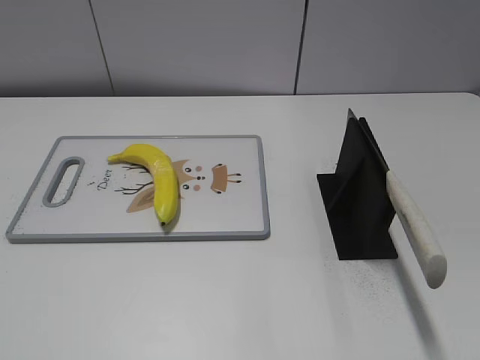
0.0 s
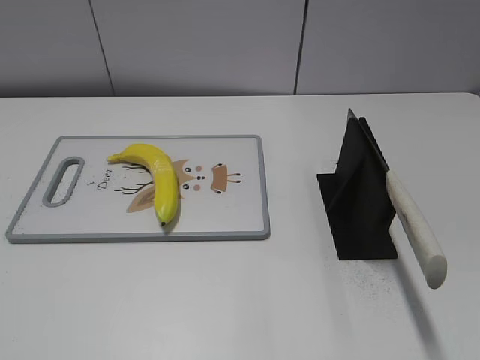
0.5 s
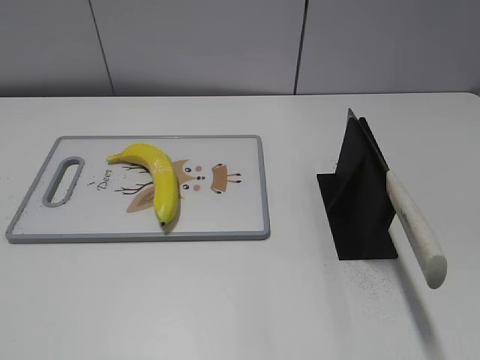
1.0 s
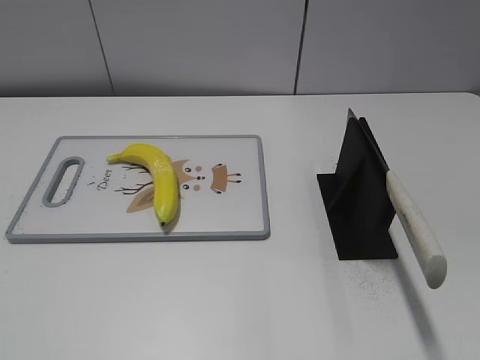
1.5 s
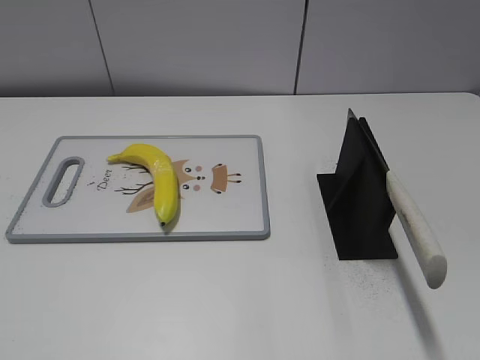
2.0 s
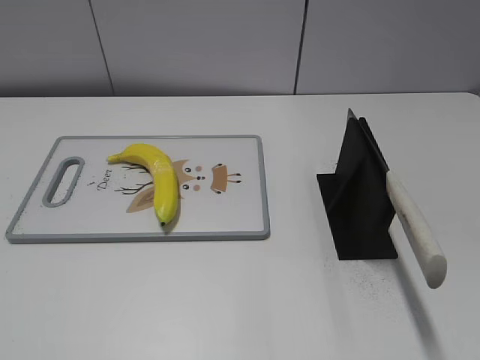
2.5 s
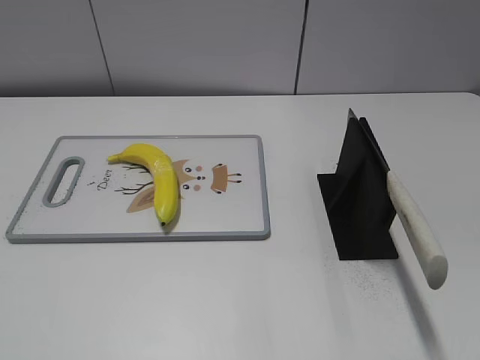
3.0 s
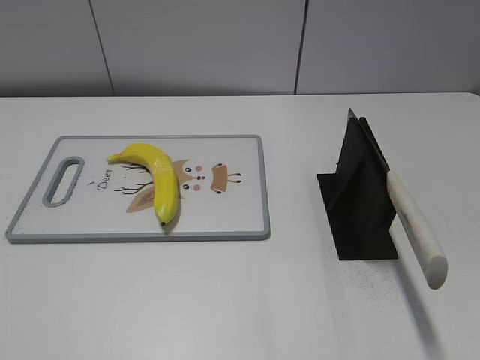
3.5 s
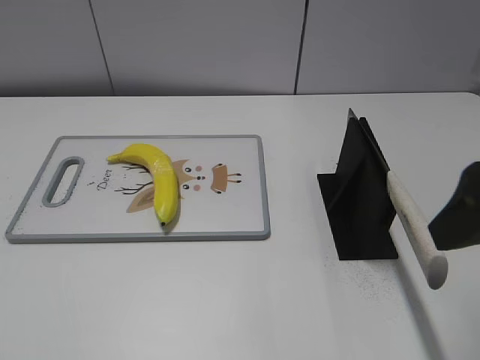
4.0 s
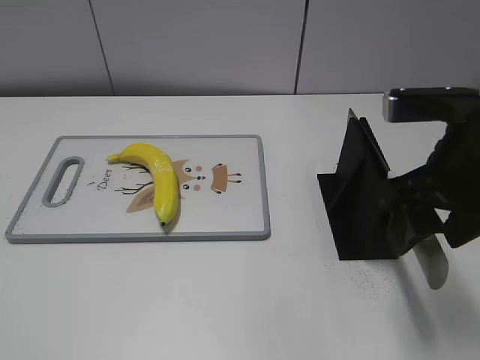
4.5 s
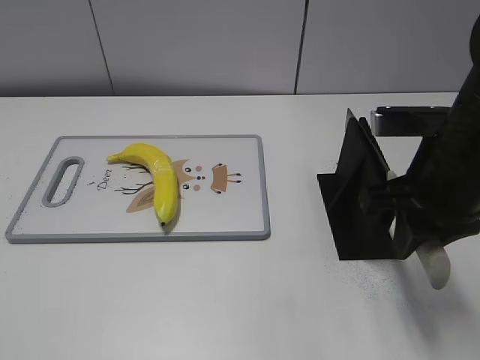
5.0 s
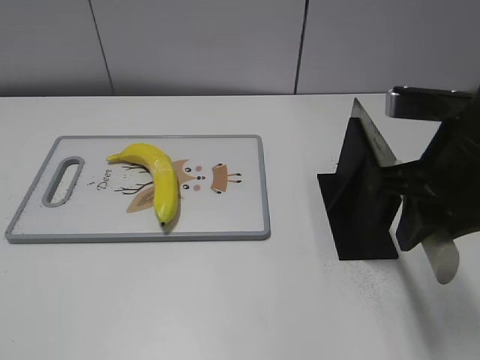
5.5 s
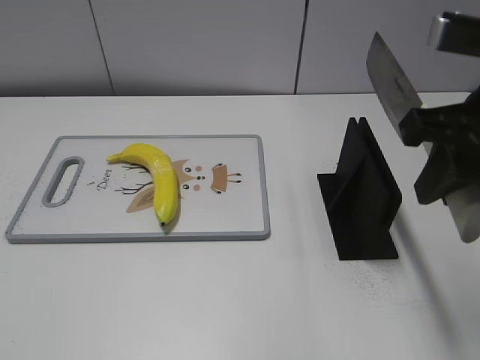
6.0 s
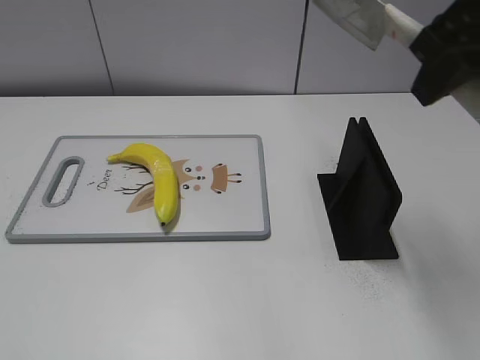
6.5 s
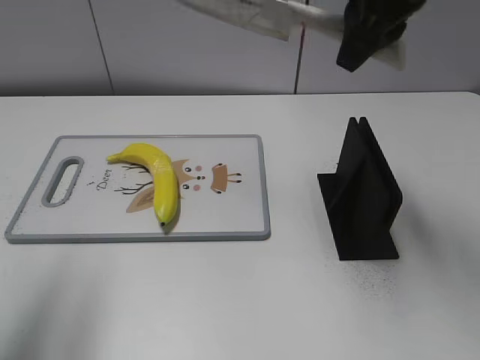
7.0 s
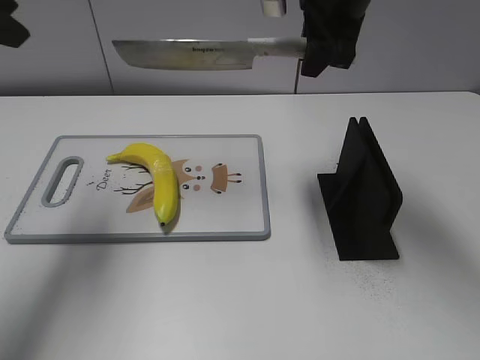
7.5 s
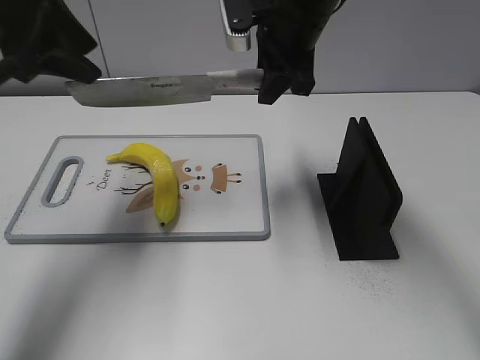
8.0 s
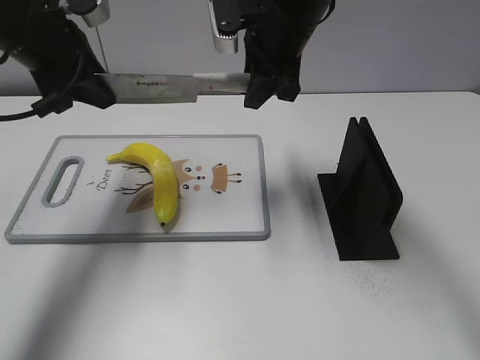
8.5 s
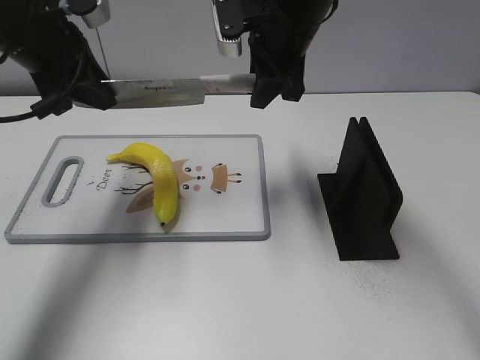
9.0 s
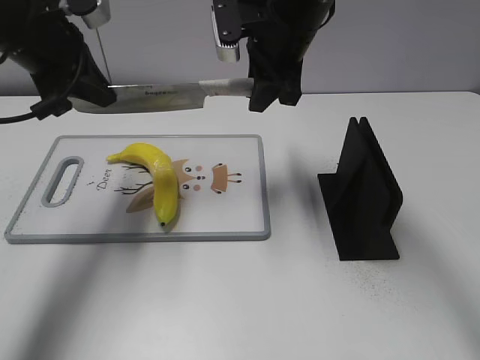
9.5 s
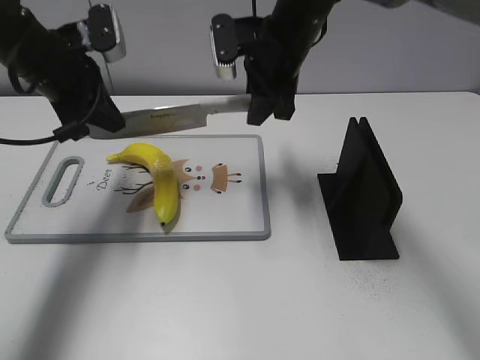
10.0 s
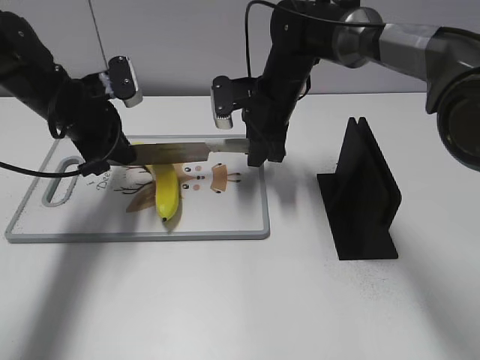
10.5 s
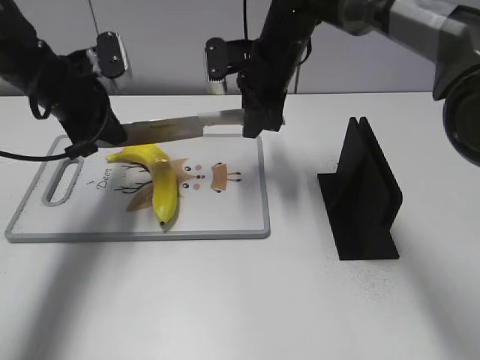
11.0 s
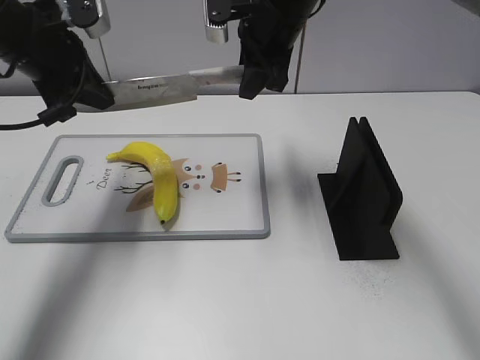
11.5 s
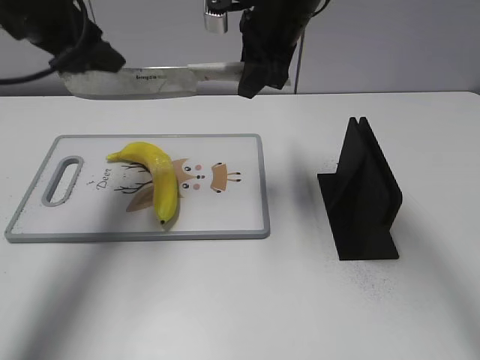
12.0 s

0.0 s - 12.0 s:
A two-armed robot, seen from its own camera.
Task of the whole recording: cut plastic banana.
Step, 0.0 s - 6.0 s: Grab the knife handle with your right hand.
Step, 6.5 s - 10.0 s: Lift the knife with your right hand.
2.0 s - 4.0 s: The right gripper is displaced forward by some 20 cm, and opens.
4.0 s - 6.0 s: The right gripper moves some 10 cm downward and comes back, and closes.
6.0 s - 8.0 s: The left gripper moves forward, some 35 cm. Meanwhile the right gripper goes about 25 cm forward and to the left.
8.0 s - 10.0 s: The left gripper shifts about 10 cm downward, and closes its fingers. The right gripper heads downward, covering some 5 cm.
10.0 s - 12.0 s: Both grippers move upward, some 5 cm. The left gripper opens.

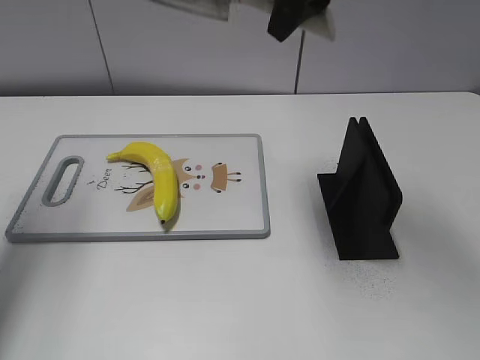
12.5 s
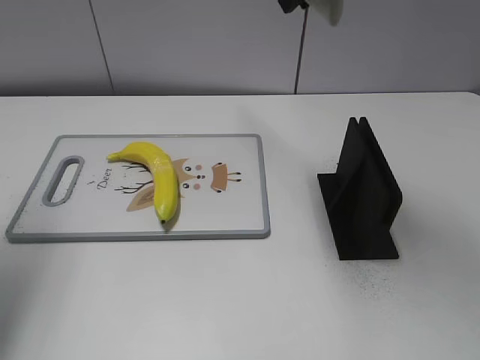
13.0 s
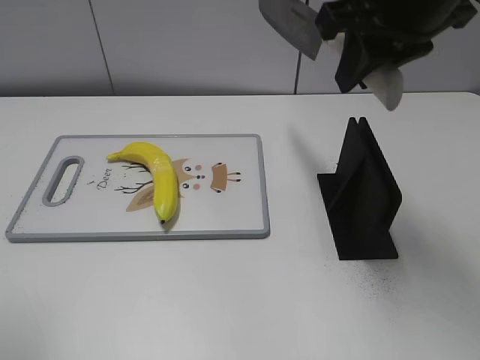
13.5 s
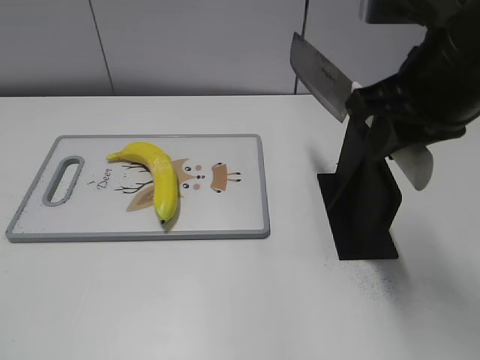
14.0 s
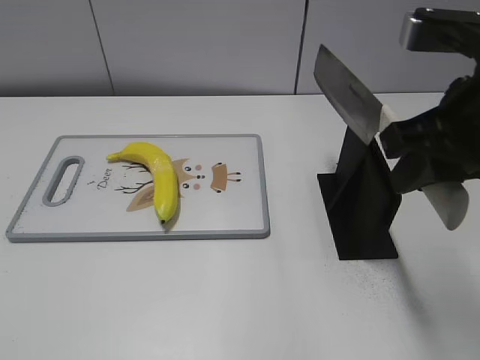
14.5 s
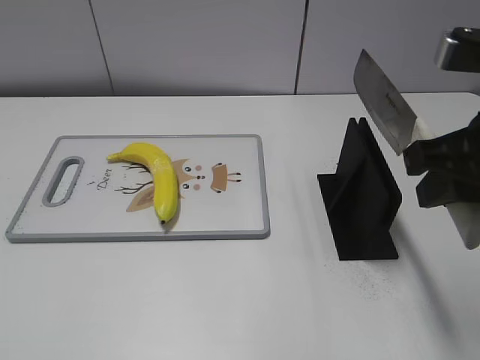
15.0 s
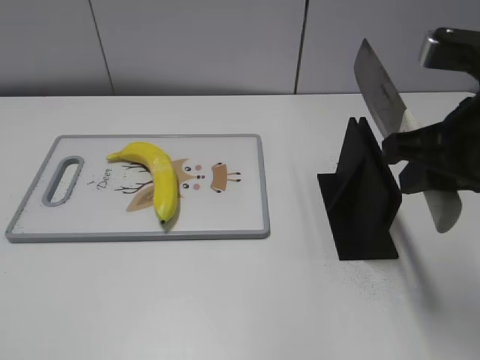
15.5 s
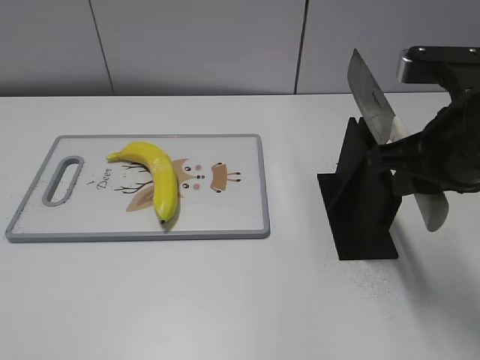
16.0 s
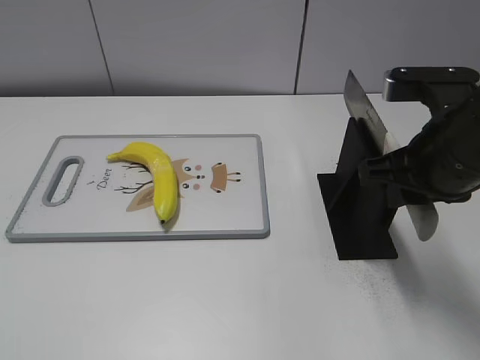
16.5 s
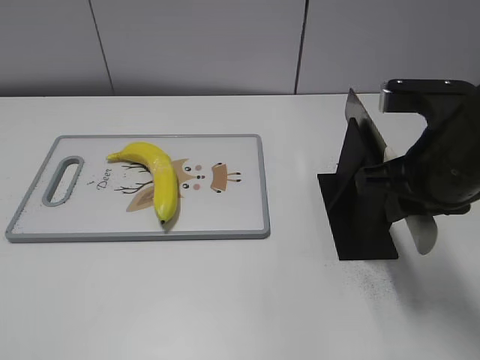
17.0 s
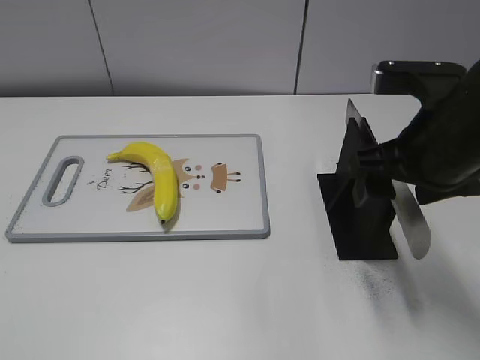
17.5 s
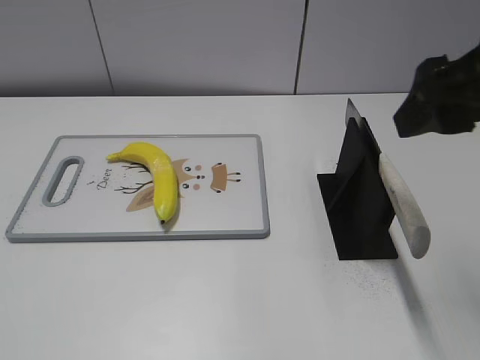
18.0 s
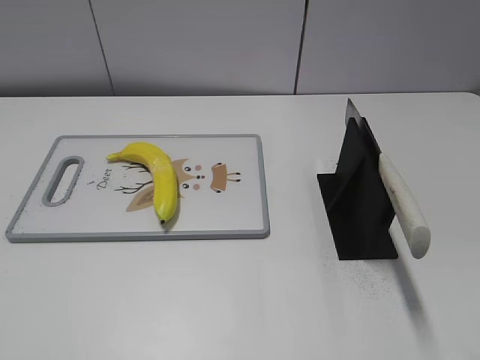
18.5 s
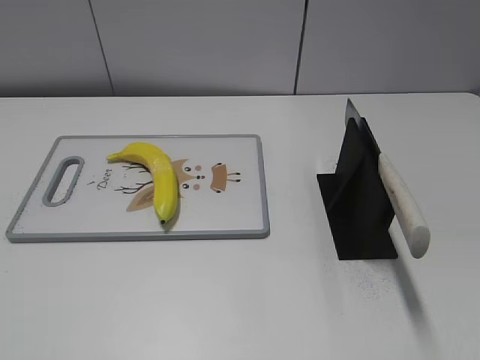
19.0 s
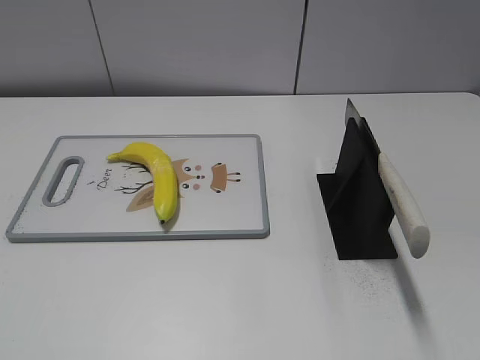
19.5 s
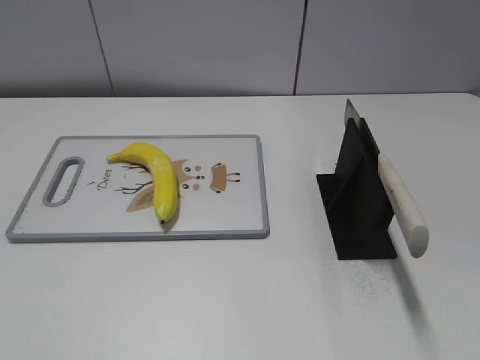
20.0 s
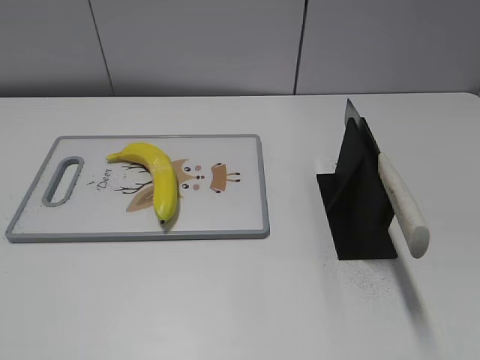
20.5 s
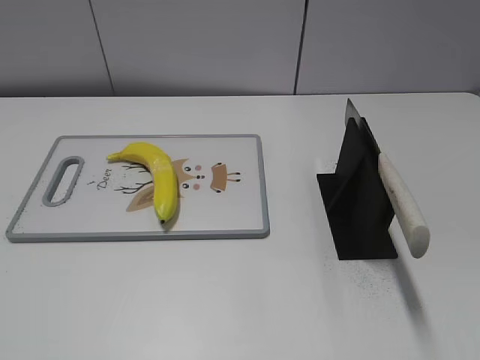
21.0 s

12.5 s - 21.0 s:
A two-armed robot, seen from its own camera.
Task of the whole recording: cut plastic banana.
Step, 13.5 s - 14.5 s: Lift the knife with your right hand.
Step, 15.0 s - 21.0 s: Place the knife on the storage rack with your right hand.
12.5 s - 14.5 s: The left gripper heads backward, covering about 30 cm, while the right gripper goes approximately 20 cm backward, to the right and downward.
14.5 s - 16.5 s: The right gripper shifts roughly 5 cm downward.
16.5 s - 19.0 s: The right gripper travels backward and to the right by some 20 cm, and opens.

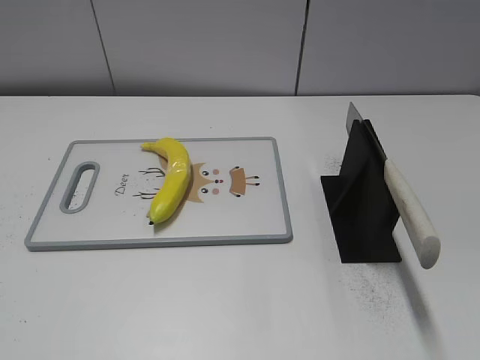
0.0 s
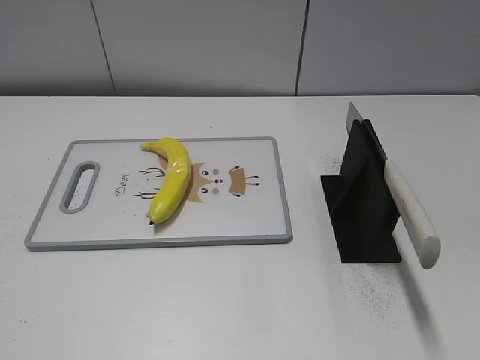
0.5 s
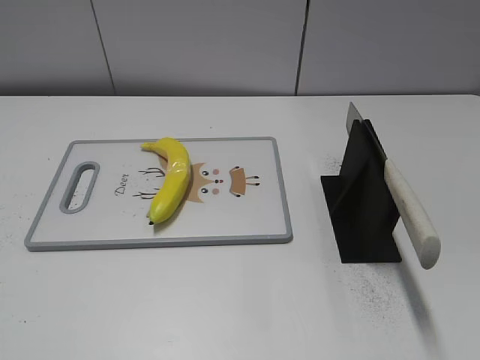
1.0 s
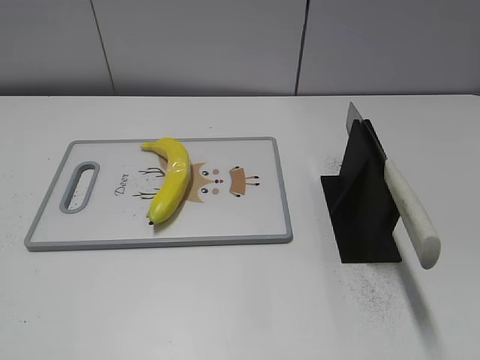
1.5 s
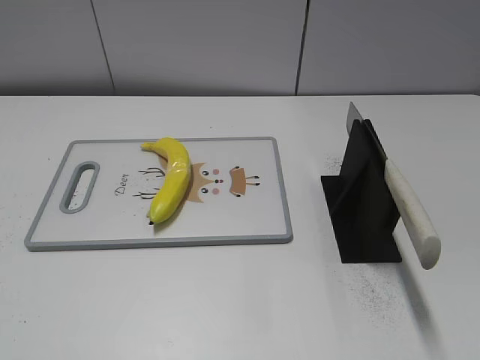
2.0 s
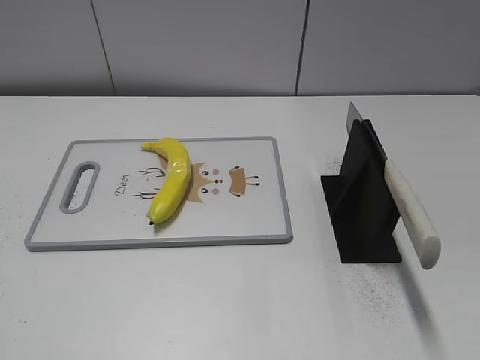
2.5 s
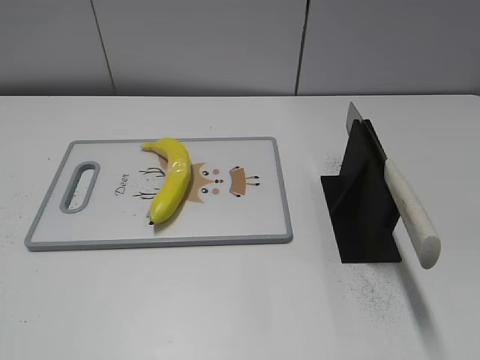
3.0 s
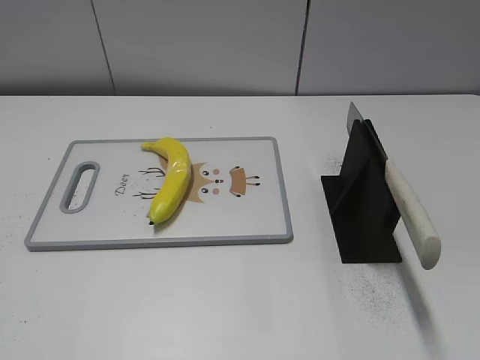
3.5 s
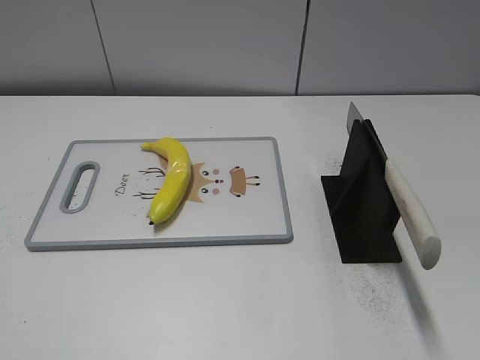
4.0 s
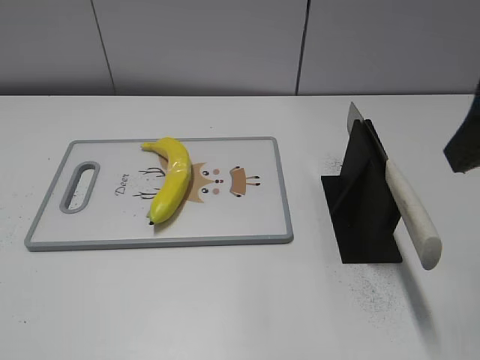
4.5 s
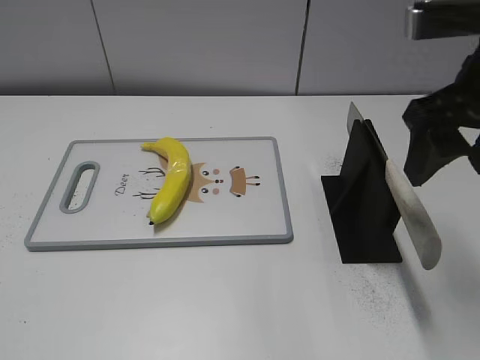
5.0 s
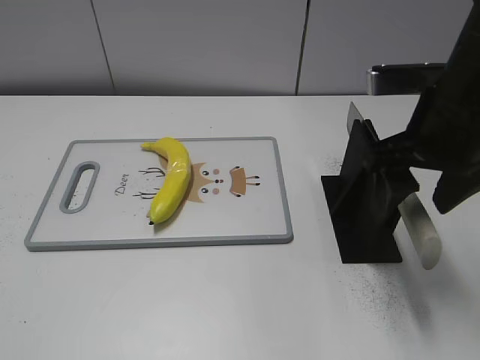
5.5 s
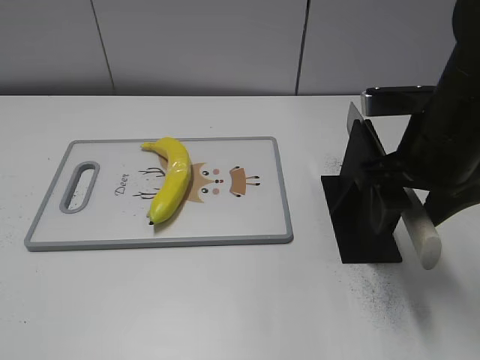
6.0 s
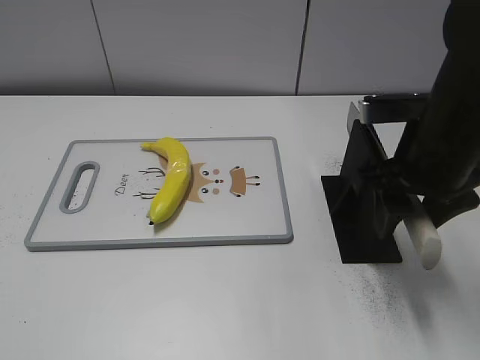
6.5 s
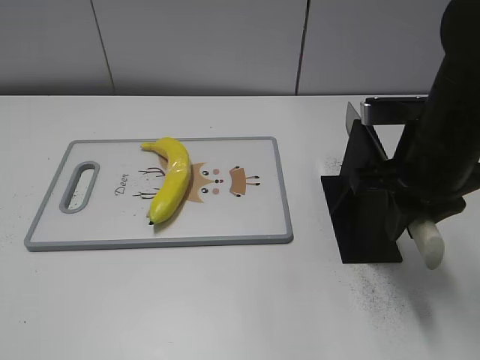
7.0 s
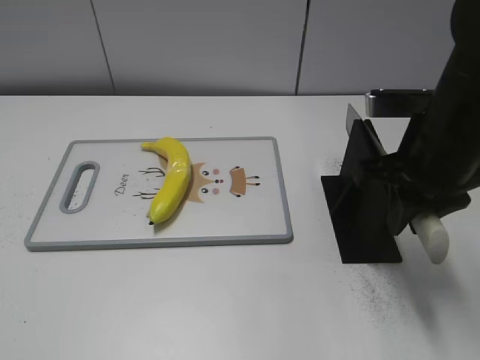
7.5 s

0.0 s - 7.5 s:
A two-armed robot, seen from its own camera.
Task of the whole recording: cut plastic banana.
4.0 s - 5.5 s: The right gripper heads forward, downward and to the left, covering some 20 cm.
5.5 s - 7.5 s: The right gripper closes its fingers.
